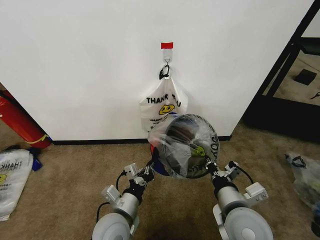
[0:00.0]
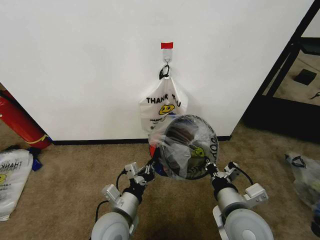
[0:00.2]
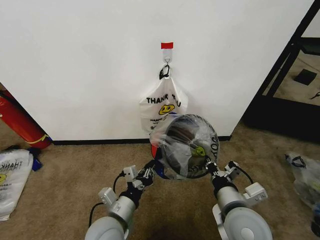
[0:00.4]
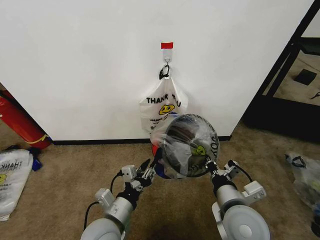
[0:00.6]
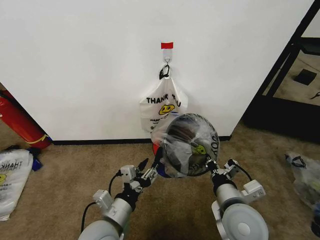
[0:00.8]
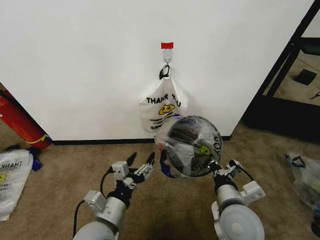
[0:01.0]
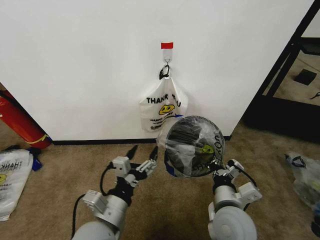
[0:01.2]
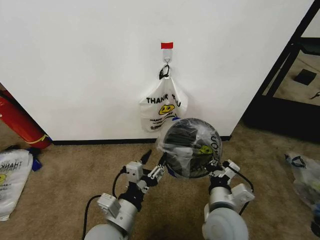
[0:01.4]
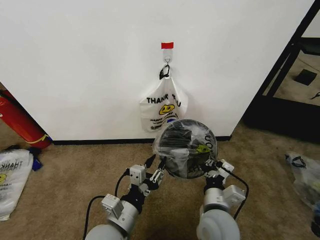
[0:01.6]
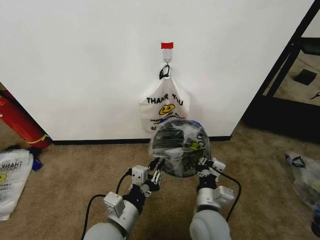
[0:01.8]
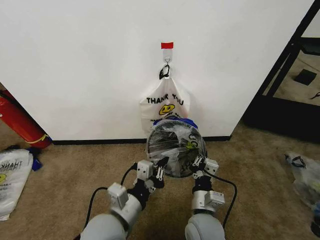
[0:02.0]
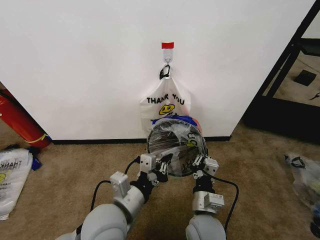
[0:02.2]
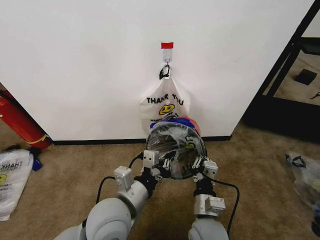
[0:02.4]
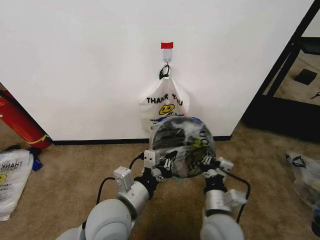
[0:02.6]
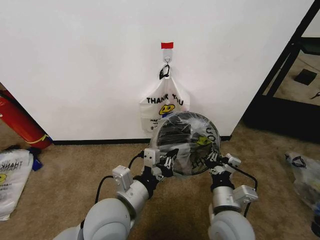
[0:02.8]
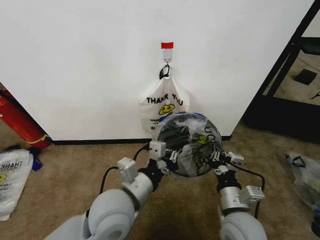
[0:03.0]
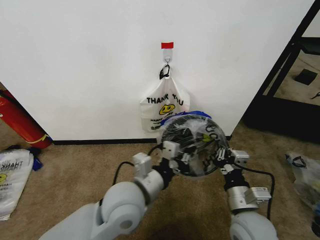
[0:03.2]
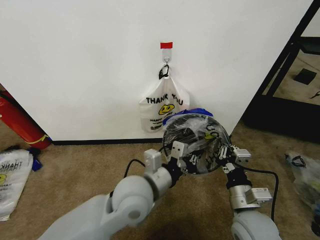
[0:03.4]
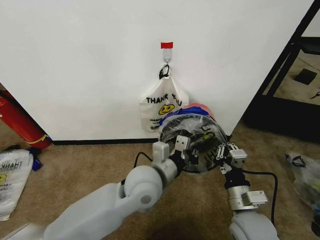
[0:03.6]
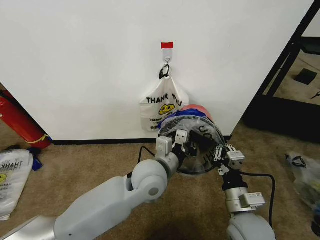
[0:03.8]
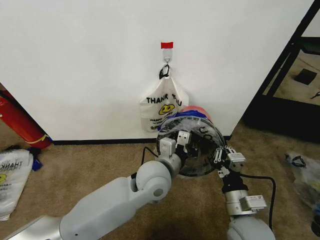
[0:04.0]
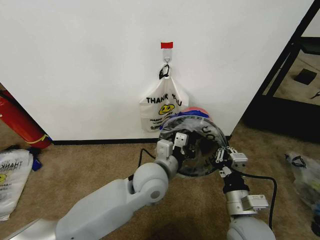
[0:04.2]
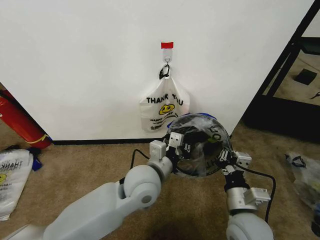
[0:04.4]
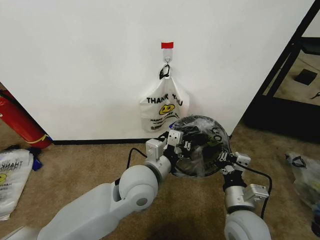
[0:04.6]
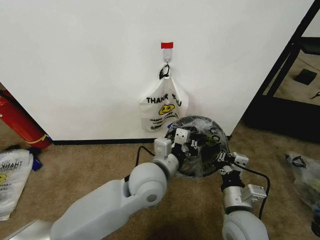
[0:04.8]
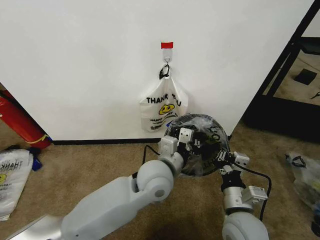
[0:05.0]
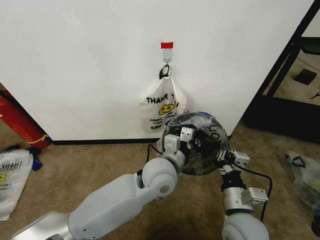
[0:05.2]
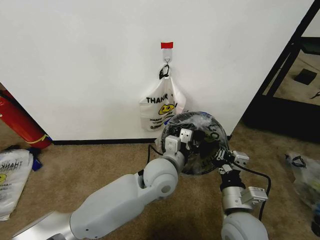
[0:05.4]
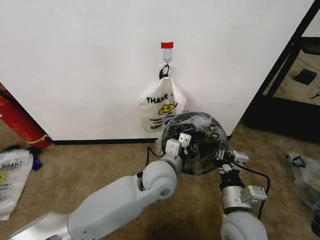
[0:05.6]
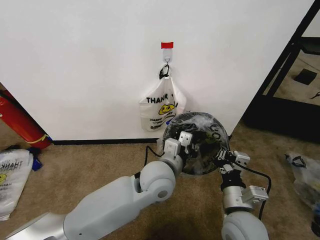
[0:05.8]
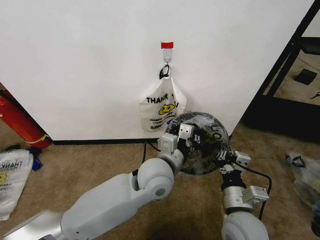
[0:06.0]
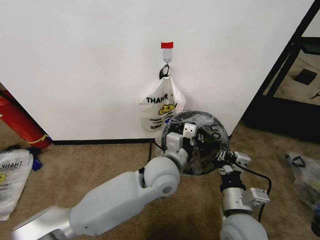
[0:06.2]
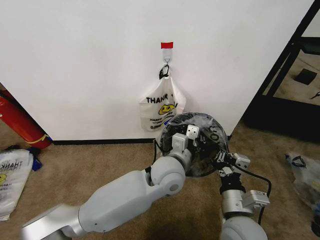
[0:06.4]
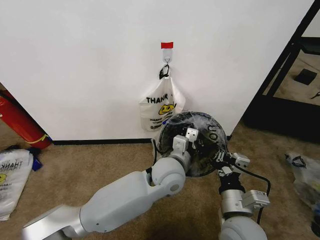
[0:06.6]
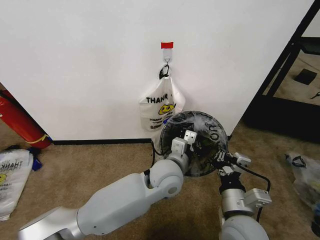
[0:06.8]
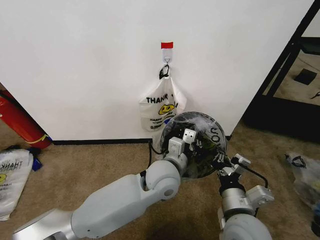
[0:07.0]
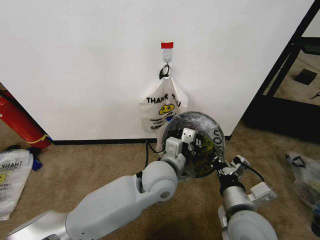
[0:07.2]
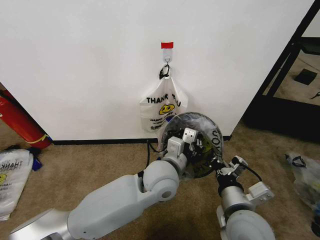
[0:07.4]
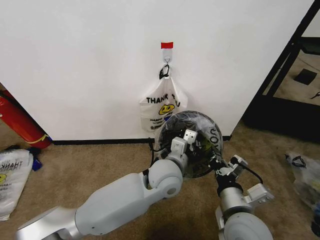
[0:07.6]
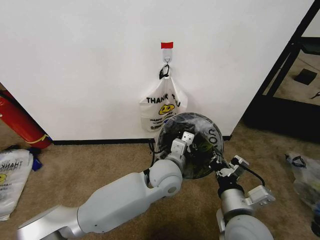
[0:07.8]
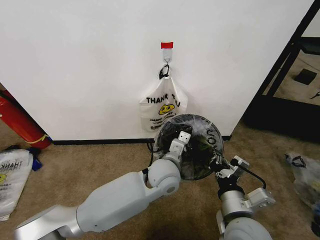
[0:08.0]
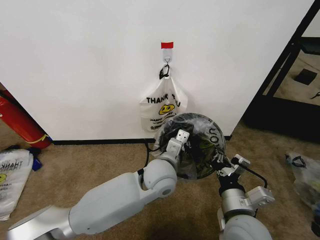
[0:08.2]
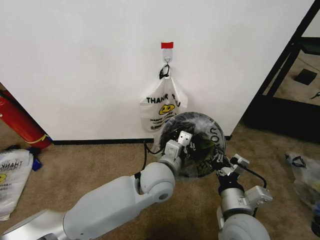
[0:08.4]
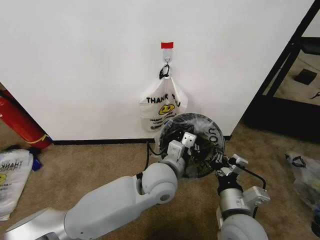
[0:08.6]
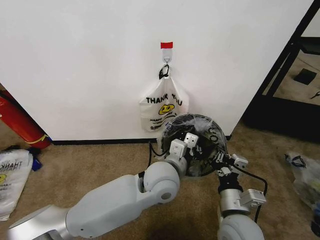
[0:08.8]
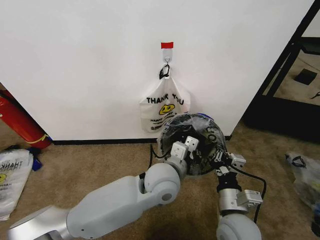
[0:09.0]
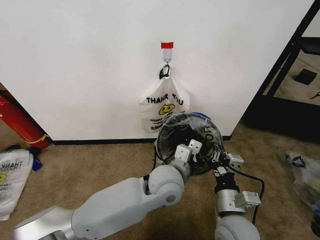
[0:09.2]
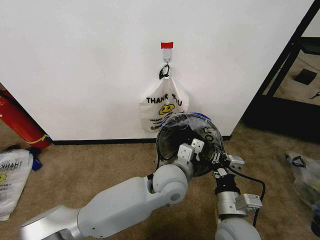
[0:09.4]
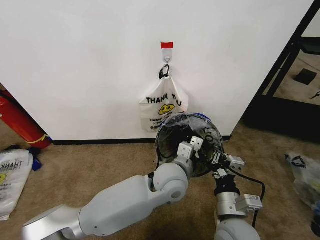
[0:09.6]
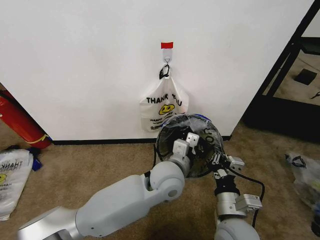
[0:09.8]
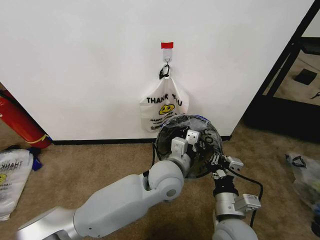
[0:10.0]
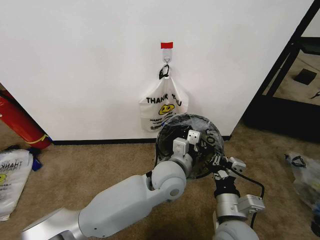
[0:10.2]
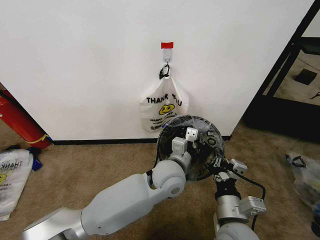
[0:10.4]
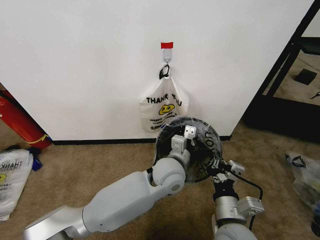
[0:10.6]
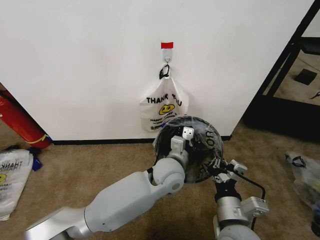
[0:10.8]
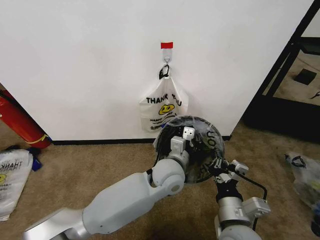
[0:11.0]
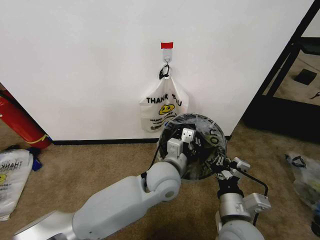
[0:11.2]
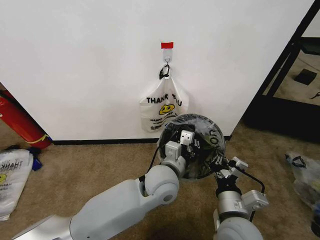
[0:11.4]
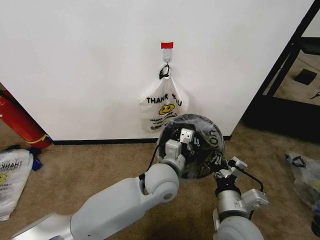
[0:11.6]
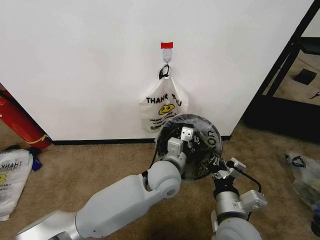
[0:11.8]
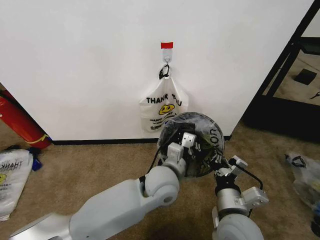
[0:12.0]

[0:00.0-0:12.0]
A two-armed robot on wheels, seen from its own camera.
Task of the whole recording: Pick up the garbage bag from the wall and place it over the trash bin.
0:00.0 to 0:01.6: The left gripper ends up approximately 5 cm from where it was, and opens its fingers. The right gripper is displaced downward by roughly 5 cm.
0:01.6 to 0:03.0: The right gripper shifts by about 5 cm, while the left gripper goes about 10 cm upward, and closes.
0:03.0 to 0:04.4: The left gripper shifts some 10 cm forward and to the right.
0:04.4 to 0:06.0: The grippers make only small movements.
0:09.0 to 0:10.4: The grippers make only small movements.
0:10.4 to 0:12.0: There are only small adjustments of the grippers.

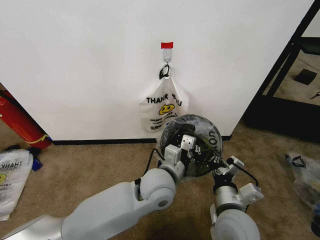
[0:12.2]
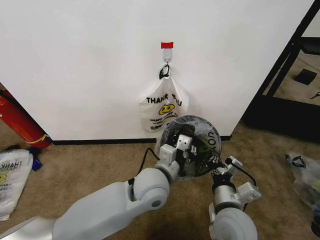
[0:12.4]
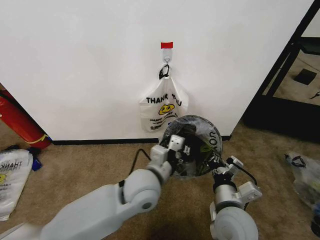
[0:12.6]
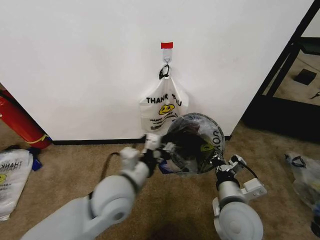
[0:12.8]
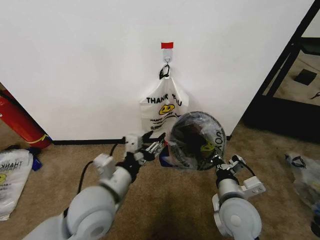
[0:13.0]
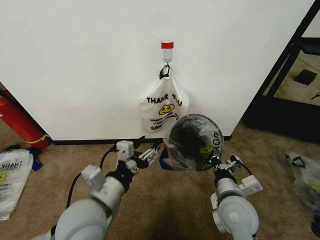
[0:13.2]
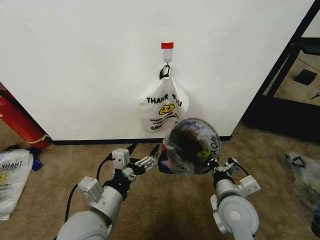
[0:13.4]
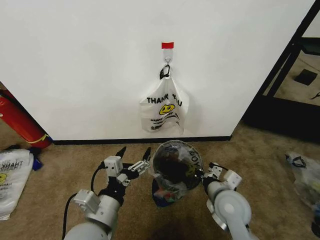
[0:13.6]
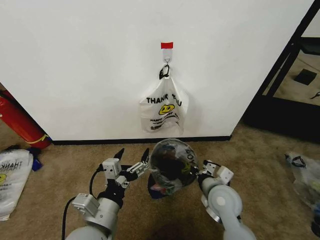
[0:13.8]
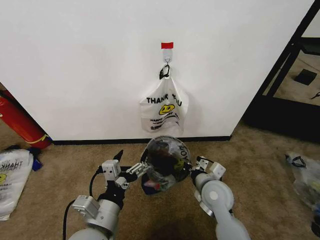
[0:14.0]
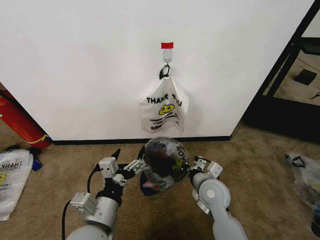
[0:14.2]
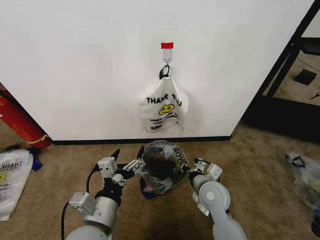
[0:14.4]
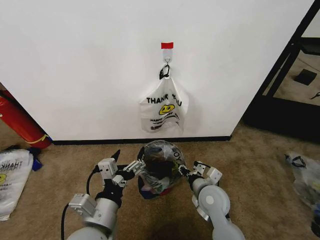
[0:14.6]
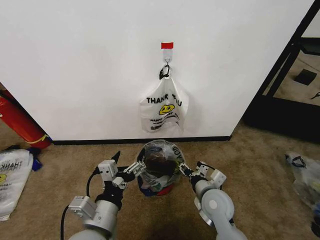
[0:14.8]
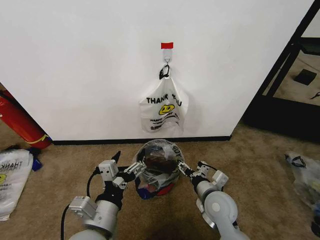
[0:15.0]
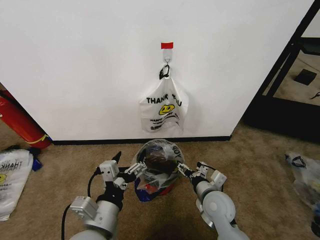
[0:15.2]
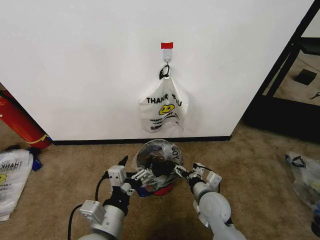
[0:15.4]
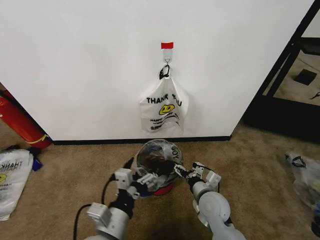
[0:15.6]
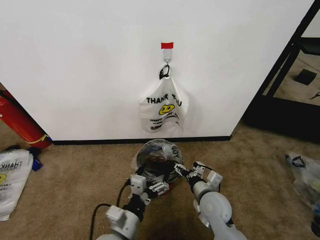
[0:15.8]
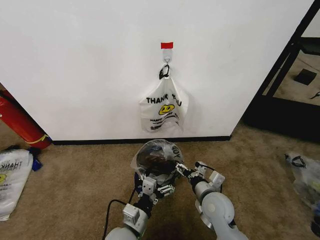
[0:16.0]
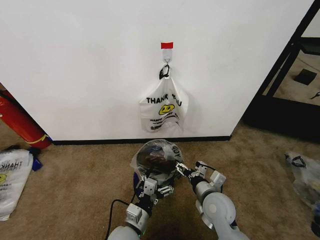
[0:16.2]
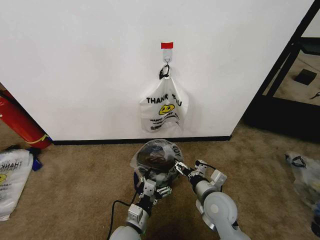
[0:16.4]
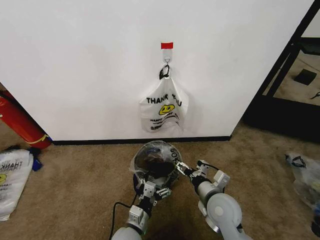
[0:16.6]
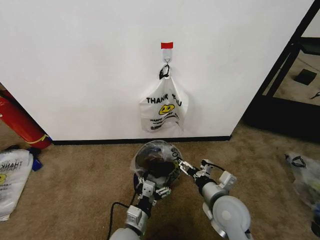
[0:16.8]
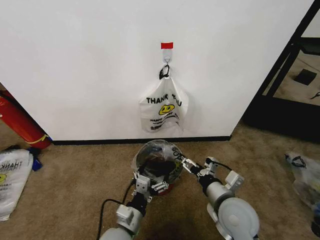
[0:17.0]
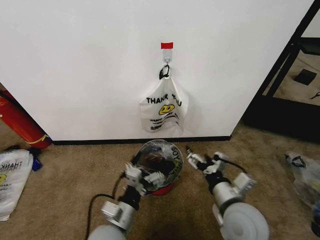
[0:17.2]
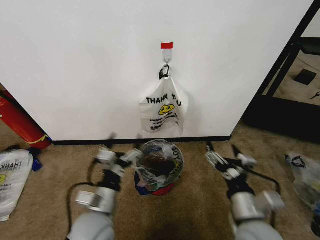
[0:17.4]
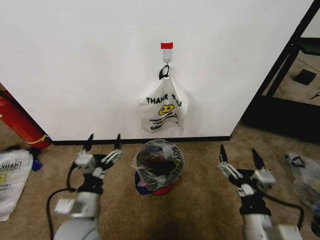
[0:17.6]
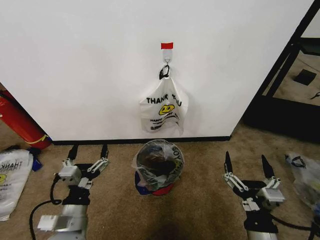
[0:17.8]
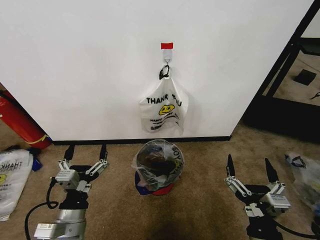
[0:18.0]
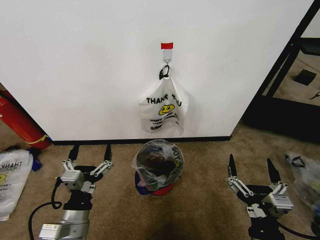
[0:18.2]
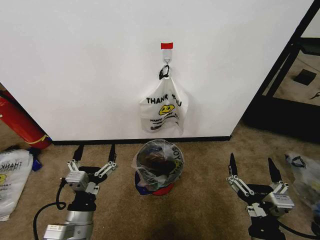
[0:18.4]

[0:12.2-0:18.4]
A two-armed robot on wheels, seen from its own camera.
Task of the whole recording: Pick up the garbage bag from the wall and place it over the trash bin.
0:12.2 to 0:13.8: The left gripper goes about 20 cm to the left and backward, and opens up. The right gripper is displaced forward by approximately 10 cm.
0:13.8 to 0:15.4: The right gripper shifts by some 5 cm, and opens up.
0:15.4 to 0:16.8: The left gripper heads downward, covering some 15 cm. The right gripper heads upward, covering roughly 5 cm.
0:16.8 to 0:18.4: The left gripper shifts roughly 15 cm upward and to the left; the right gripper shifts about 15 cm backward.
